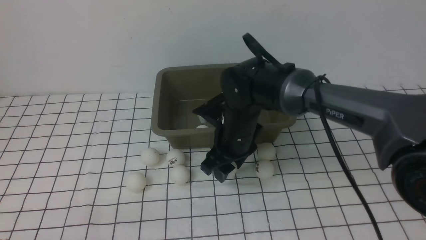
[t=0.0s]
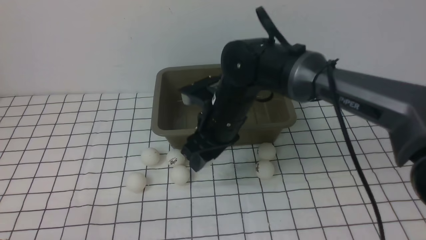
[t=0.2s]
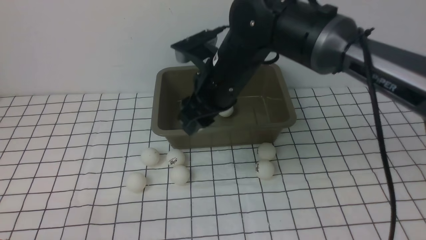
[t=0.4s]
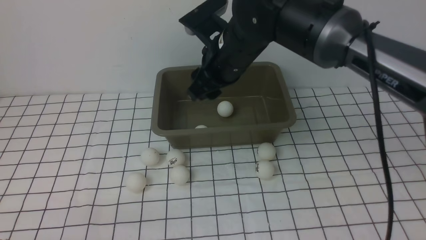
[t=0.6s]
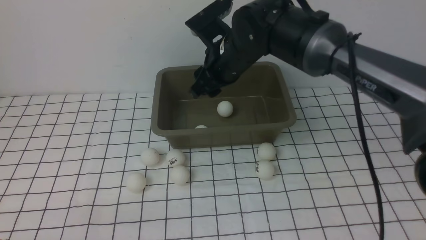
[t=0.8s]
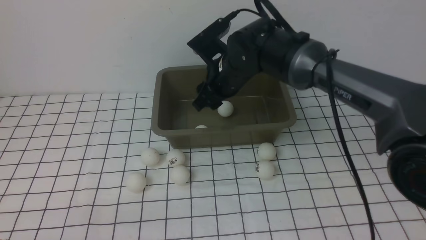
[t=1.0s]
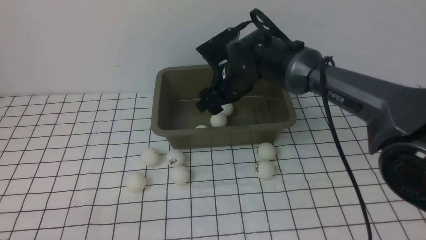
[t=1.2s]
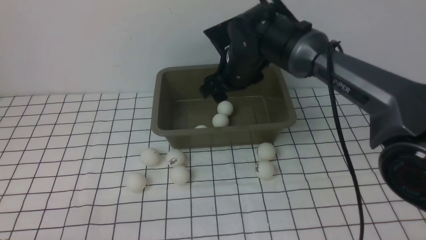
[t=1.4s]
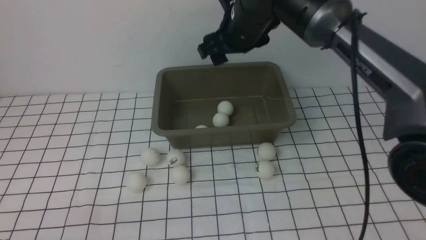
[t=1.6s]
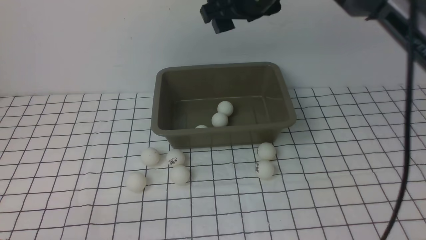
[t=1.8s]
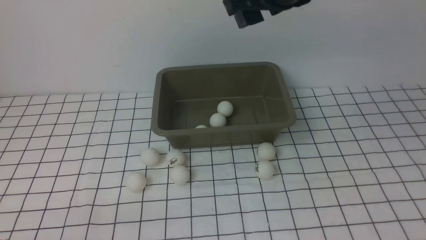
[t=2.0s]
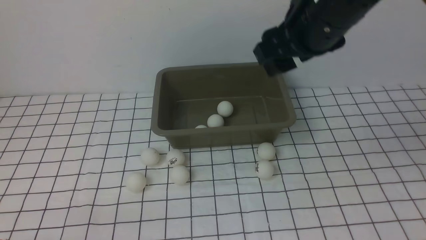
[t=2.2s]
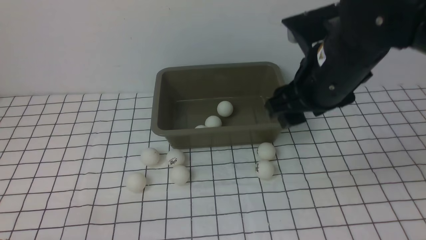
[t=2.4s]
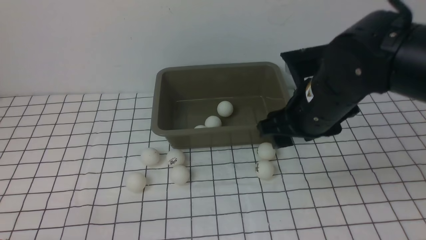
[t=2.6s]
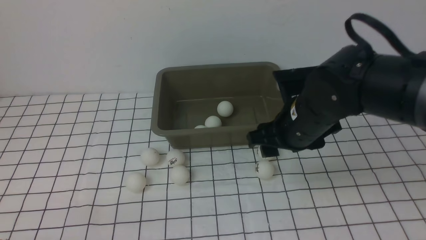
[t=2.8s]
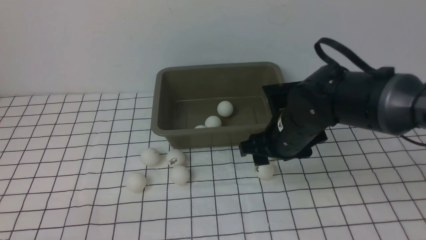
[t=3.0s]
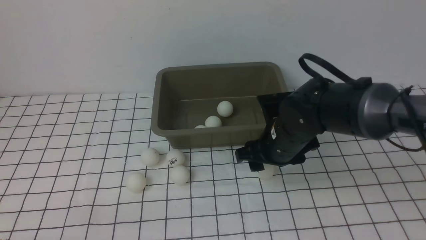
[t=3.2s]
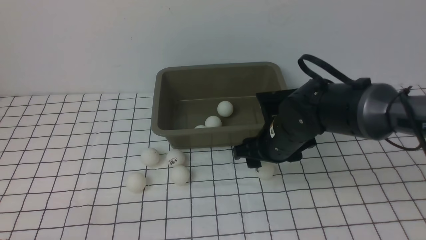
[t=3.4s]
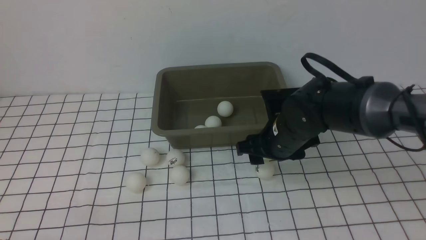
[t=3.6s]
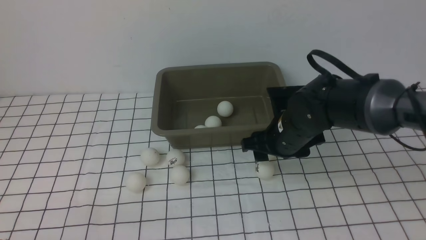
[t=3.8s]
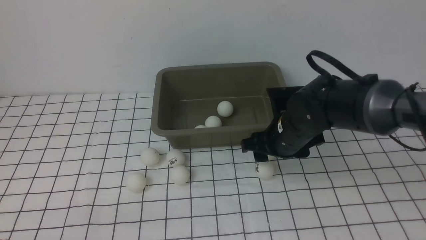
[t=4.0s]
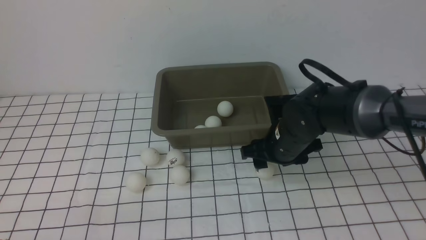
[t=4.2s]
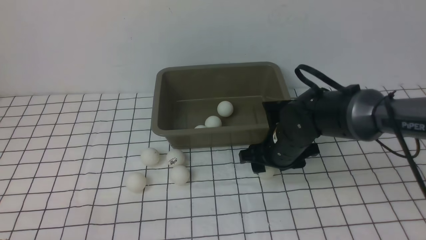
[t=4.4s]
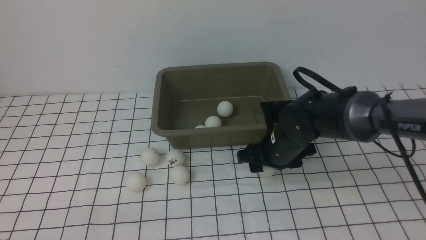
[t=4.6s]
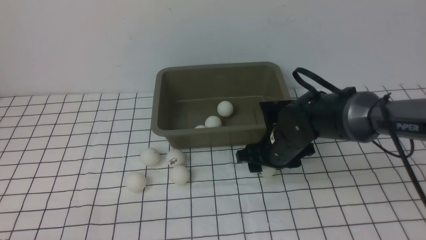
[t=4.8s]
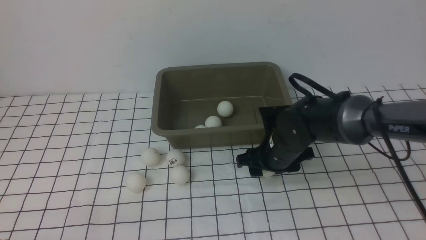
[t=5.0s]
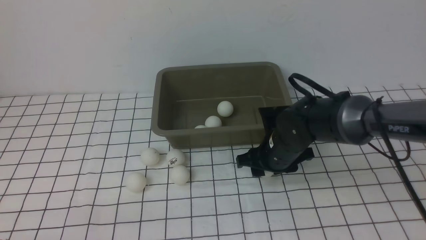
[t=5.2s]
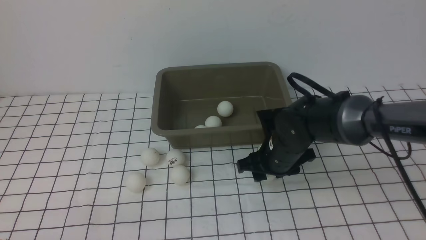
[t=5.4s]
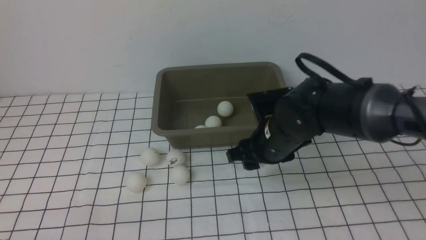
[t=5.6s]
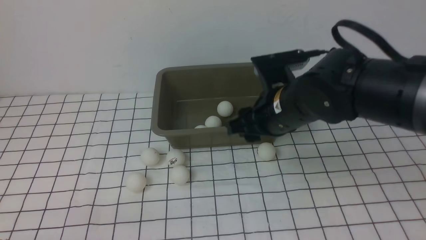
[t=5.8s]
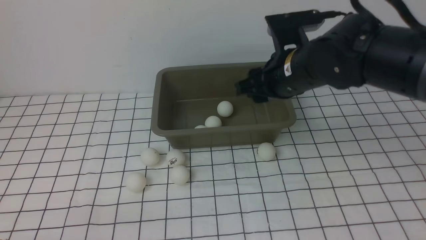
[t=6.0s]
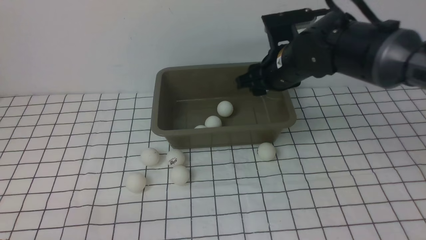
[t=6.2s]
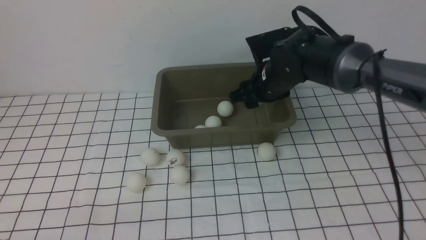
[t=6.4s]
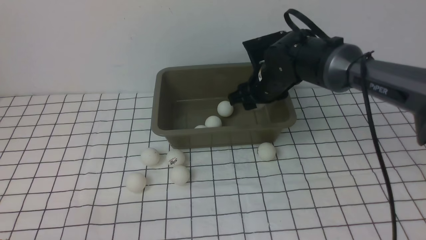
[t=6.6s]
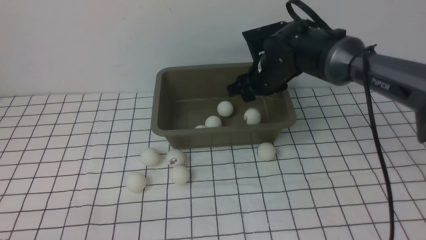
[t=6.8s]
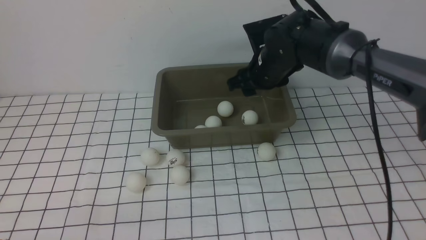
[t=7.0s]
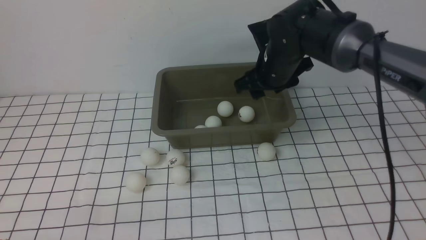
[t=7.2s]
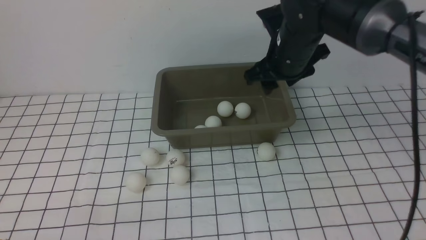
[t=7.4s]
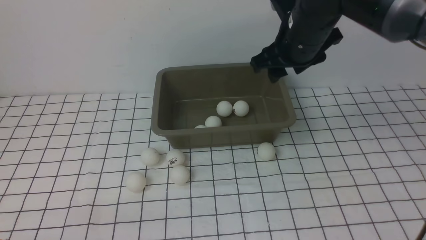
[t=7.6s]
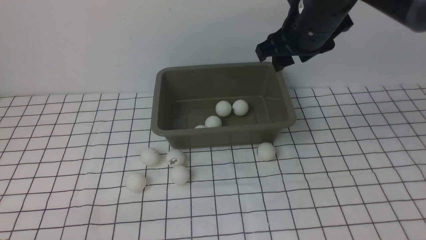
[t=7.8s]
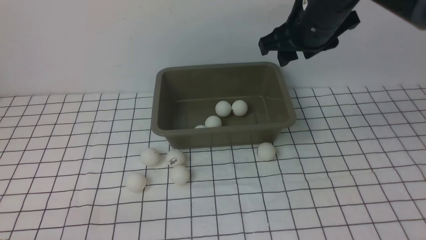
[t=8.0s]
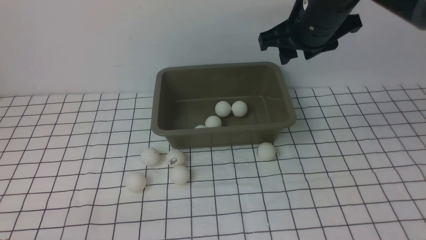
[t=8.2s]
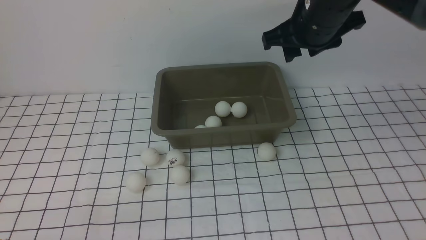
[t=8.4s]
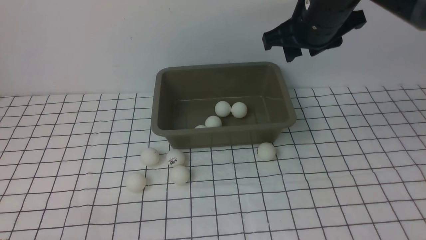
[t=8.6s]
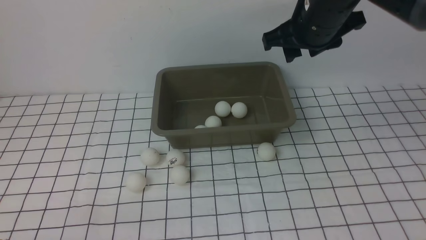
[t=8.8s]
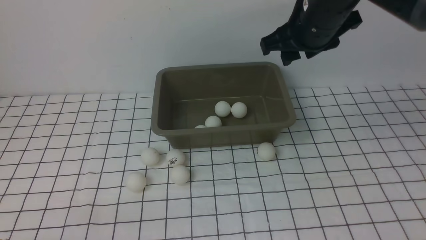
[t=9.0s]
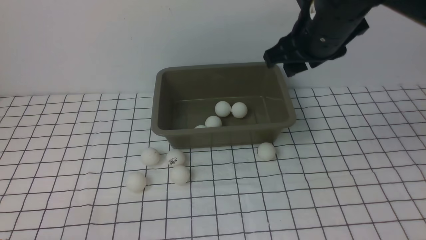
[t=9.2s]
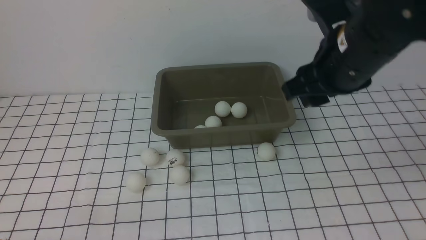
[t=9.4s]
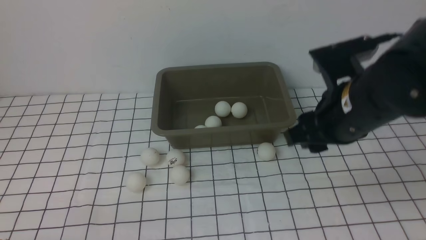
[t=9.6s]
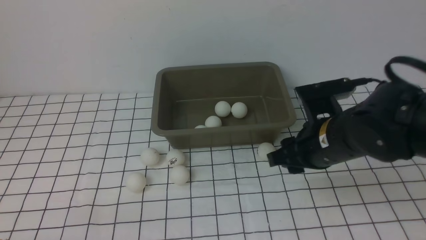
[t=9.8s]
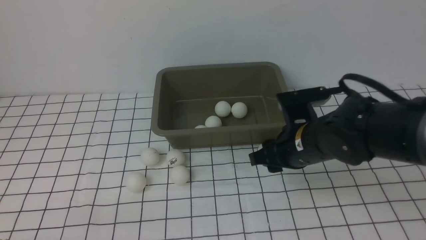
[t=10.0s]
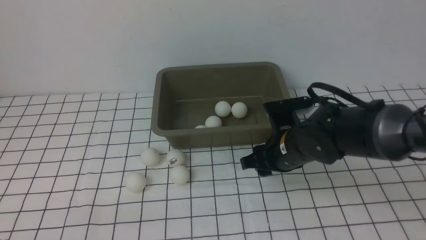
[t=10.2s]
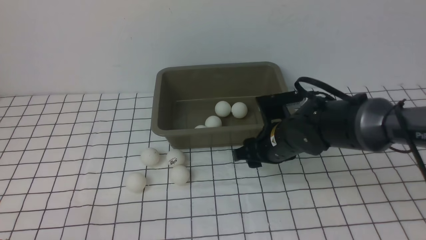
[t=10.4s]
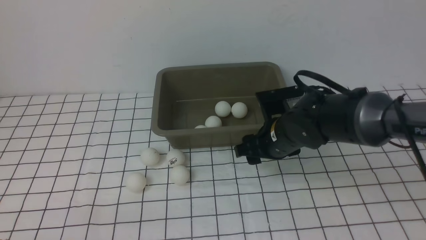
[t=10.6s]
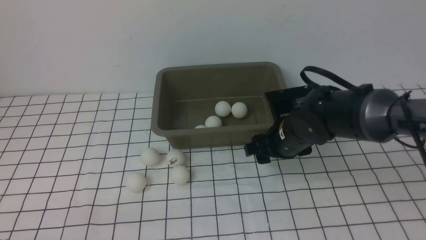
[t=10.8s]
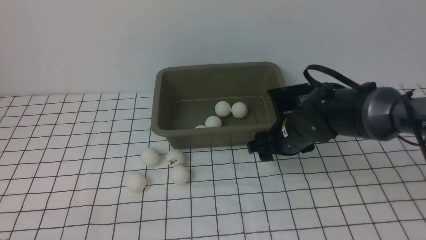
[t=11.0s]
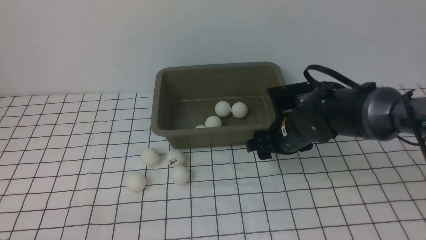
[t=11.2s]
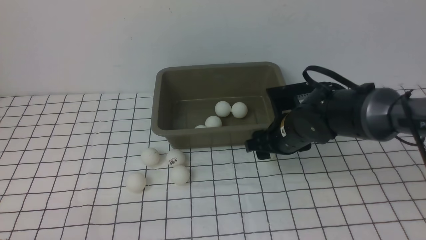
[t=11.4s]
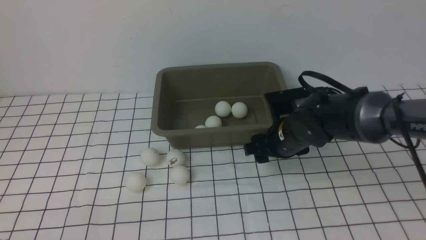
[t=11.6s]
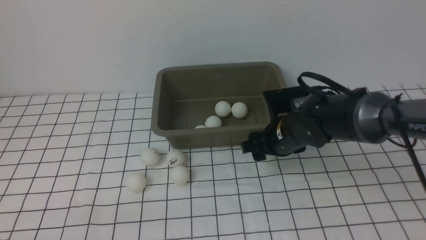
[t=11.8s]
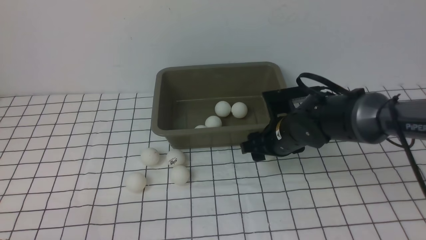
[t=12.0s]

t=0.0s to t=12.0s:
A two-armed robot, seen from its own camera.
Step, t=0.4s to t=1.2s: use the right arm to put the table tennis ball into the box.
Step, t=1.4s to t=5.6s: use the right arm to clamp the table tennis ball closest to it.
Step, t=5.8s to t=6.8s: use the right arm to put the table tennis ball into the box.
t=0.0s to t=1.6s: The right gripper swings up and down, approximately 10 cm each way, with 2 reversals.
t=1.6s to t=3.0s: The right gripper is displaced downward, backward and to the right by about 15 cm.
t=3.0s to t=4.4s: The right gripper goes about 5 cm downward.
t=4.4s to t=6.0s: The right gripper heads upward, covering approximately 10 cm.
t=6.0s to t=7.6s: The right gripper shifts about 5 cm upward.
t=7.6s to t=9.0s: The grippers move only a little.
t=9.0s to t=10.4s: The right gripper heads downward, covering roughly 20 cm.
t=10.4s to t=12.0s: There are only small adjustments of the grippers.

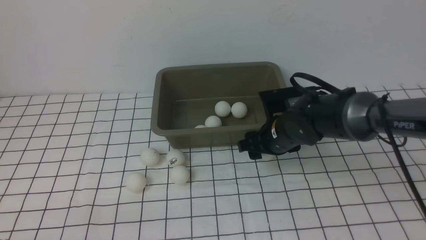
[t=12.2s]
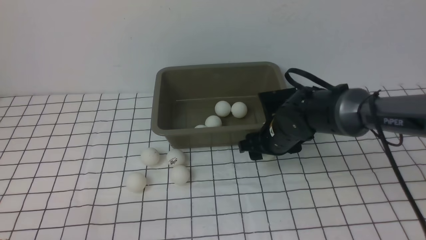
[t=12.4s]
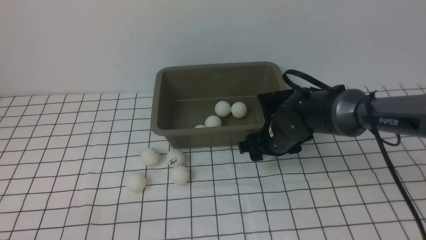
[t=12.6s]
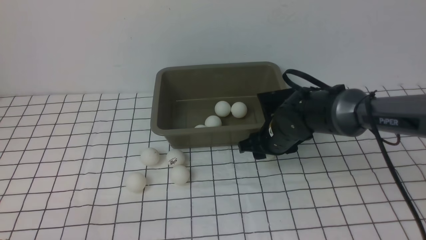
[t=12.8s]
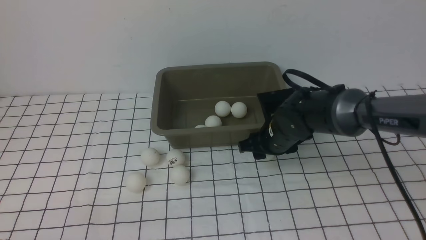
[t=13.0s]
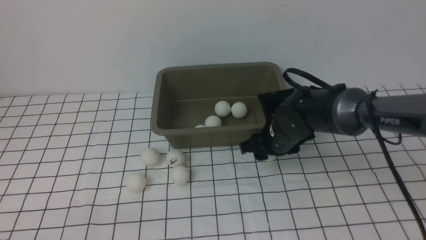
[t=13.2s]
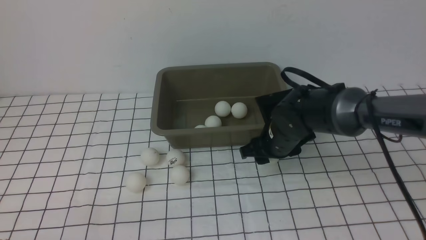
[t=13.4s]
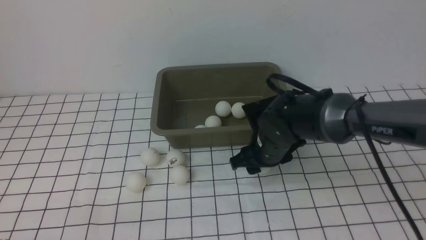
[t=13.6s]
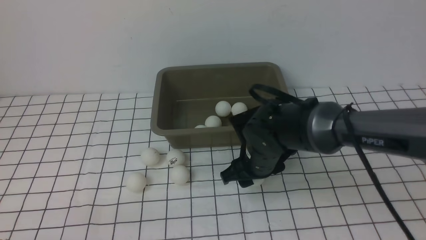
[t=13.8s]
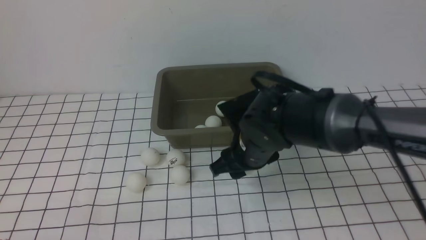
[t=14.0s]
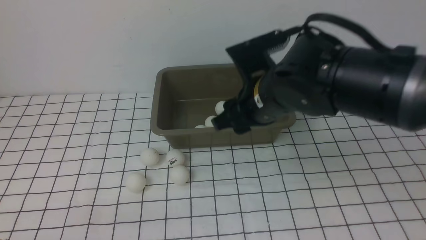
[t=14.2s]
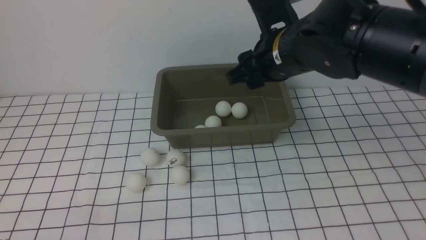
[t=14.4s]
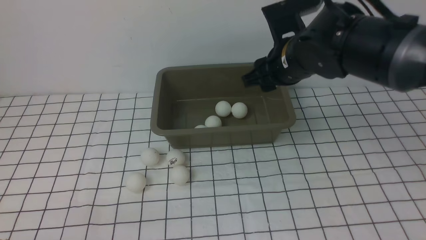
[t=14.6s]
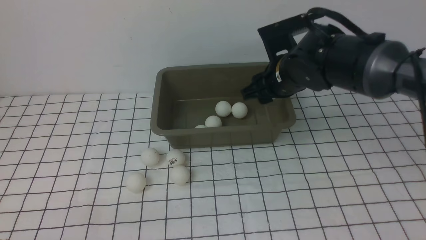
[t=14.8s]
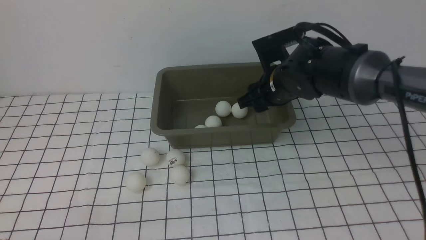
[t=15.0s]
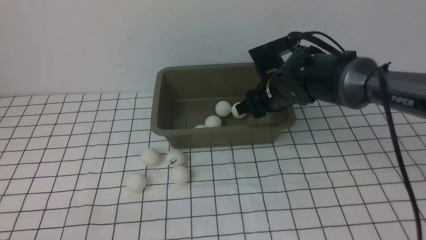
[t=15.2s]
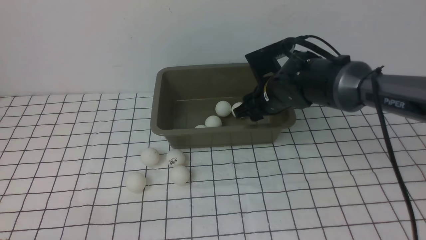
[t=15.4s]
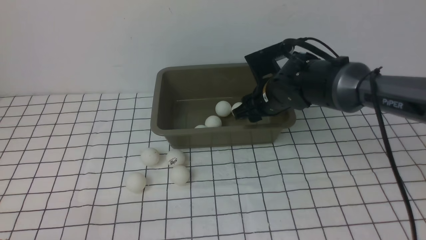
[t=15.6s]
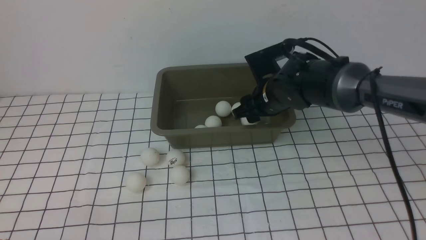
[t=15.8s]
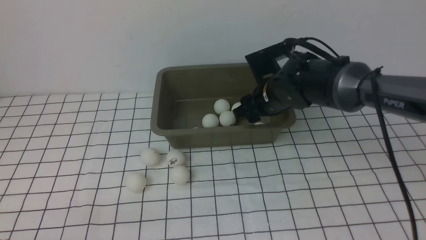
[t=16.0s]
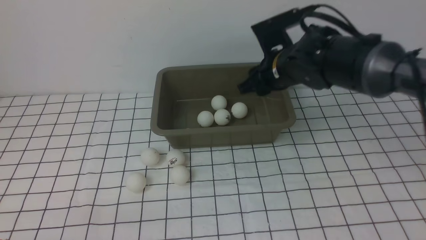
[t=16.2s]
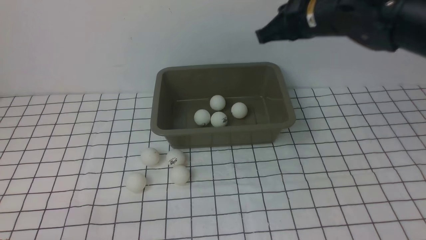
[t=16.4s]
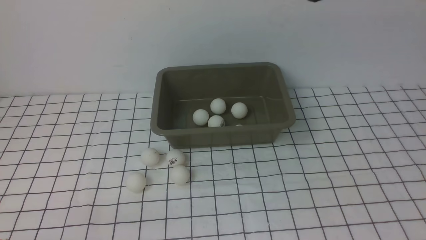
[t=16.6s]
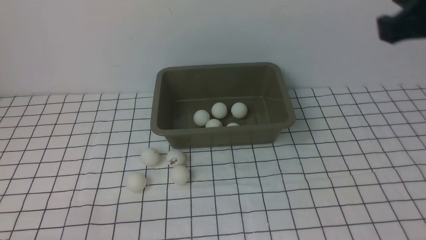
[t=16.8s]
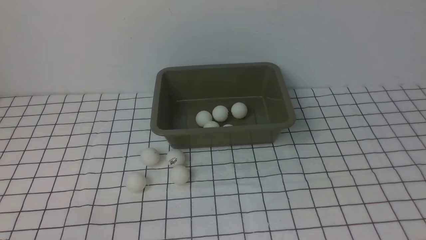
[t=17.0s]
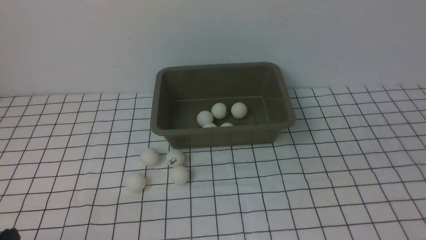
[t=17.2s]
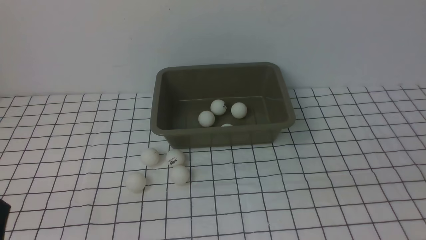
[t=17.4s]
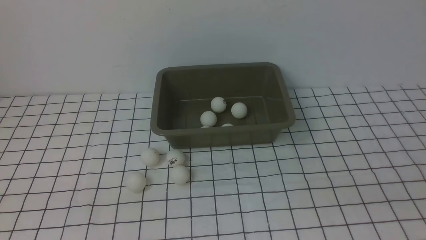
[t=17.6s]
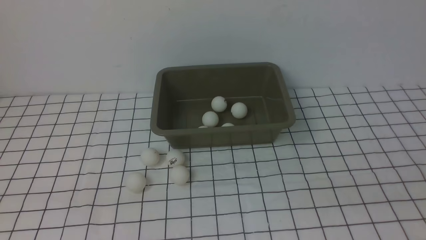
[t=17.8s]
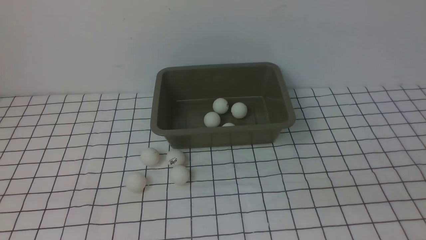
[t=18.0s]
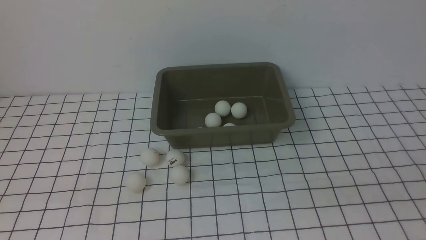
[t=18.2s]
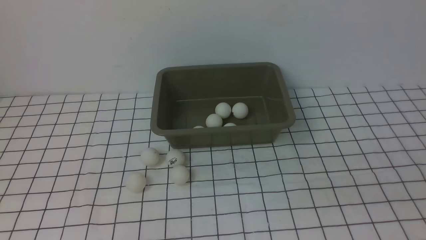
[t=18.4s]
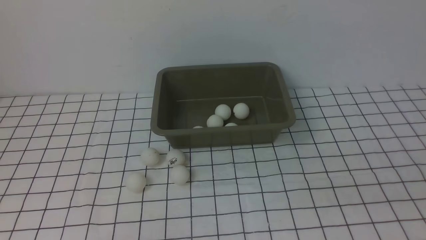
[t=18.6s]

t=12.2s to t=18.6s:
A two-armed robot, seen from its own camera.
Step, t=14.2s to t=16.0s: use the right arm to put the table tennis ball into the box.
t=12.2s to t=13.8s: The right gripper ends up roughly 5 cm from where it was.
t=13.8s to t=15.4s: The right gripper travels forward by about 10 cm, and reaches roughly 15 cm upward, then returns.
t=15.4s to t=17.0s: The right gripper moves backward and to the right, about 40 cm, and closes its fingers.
